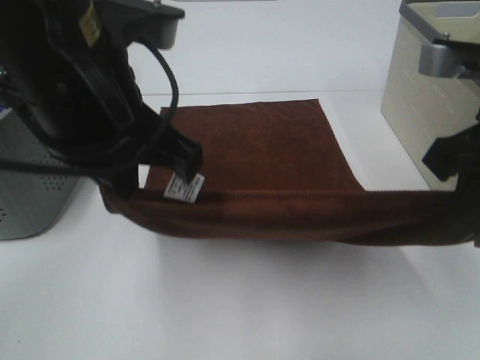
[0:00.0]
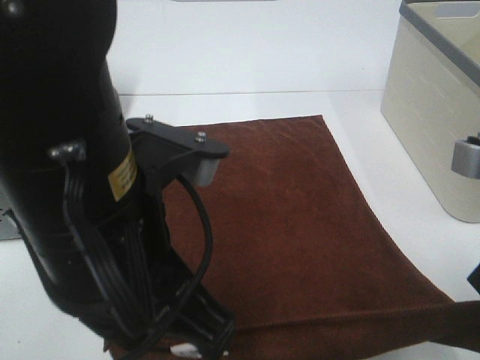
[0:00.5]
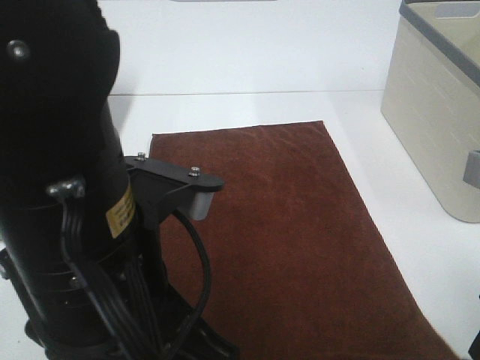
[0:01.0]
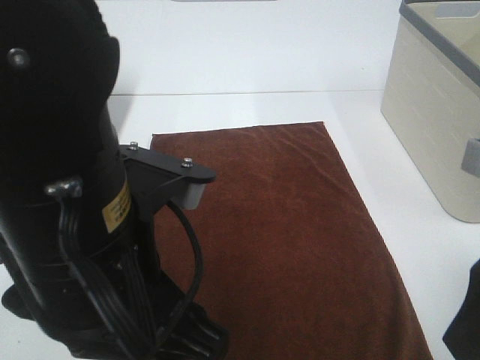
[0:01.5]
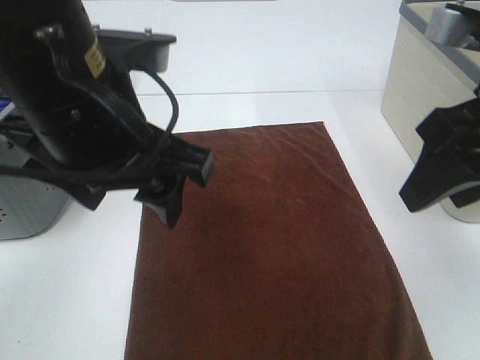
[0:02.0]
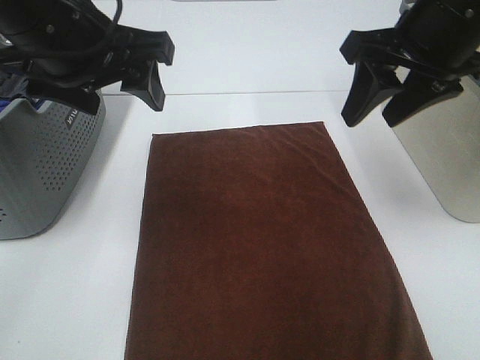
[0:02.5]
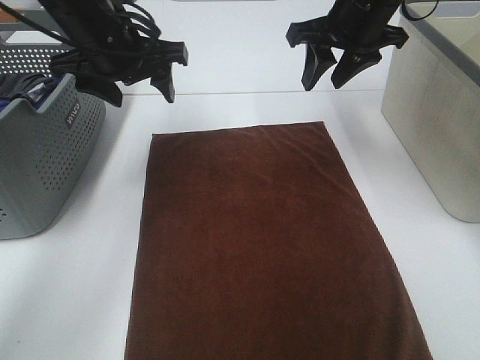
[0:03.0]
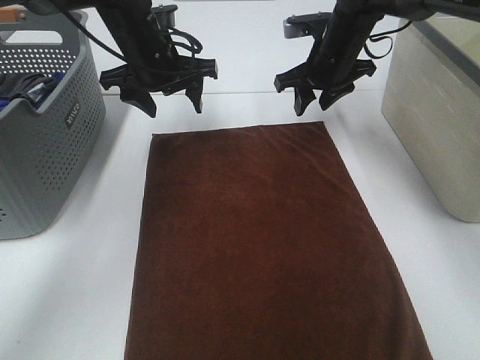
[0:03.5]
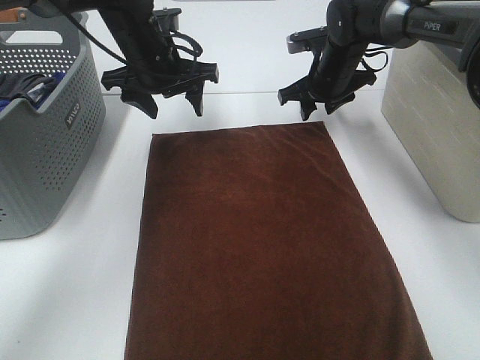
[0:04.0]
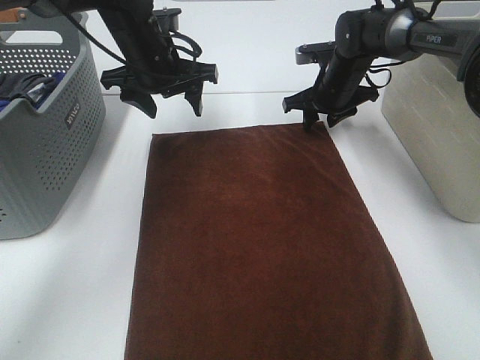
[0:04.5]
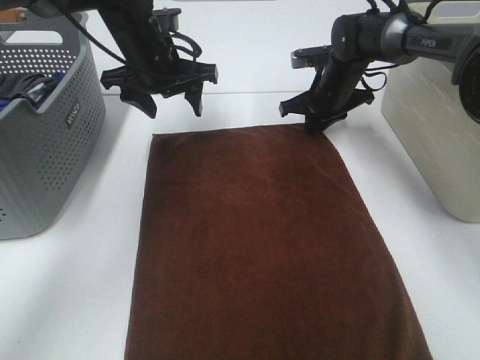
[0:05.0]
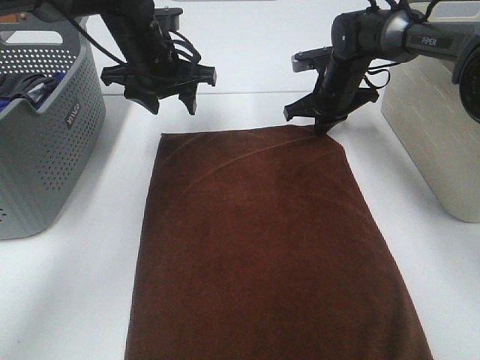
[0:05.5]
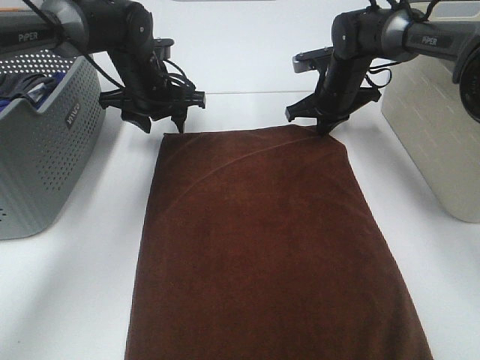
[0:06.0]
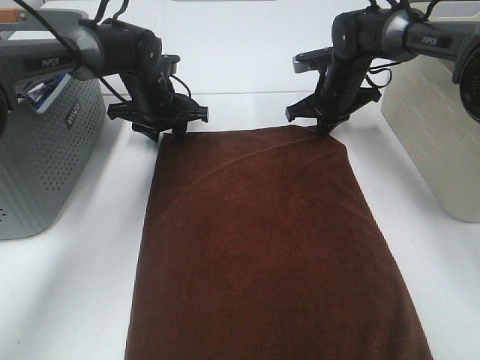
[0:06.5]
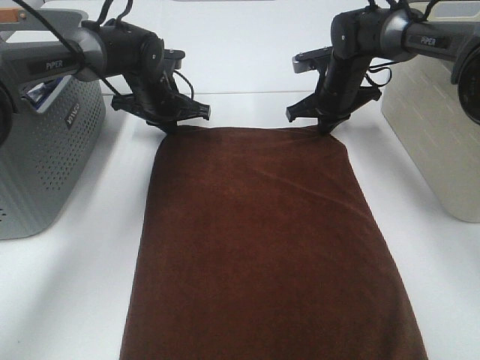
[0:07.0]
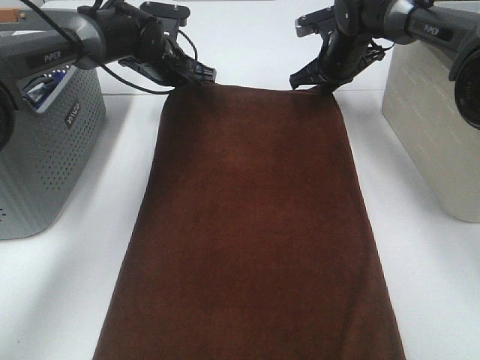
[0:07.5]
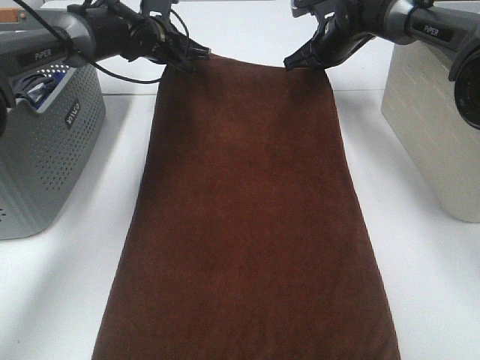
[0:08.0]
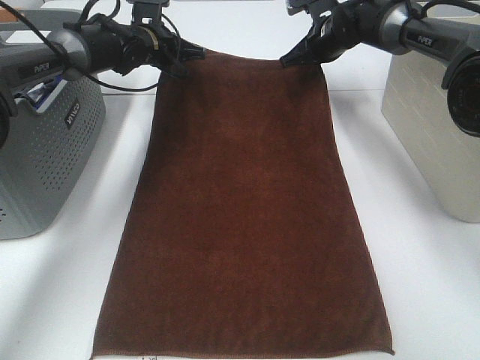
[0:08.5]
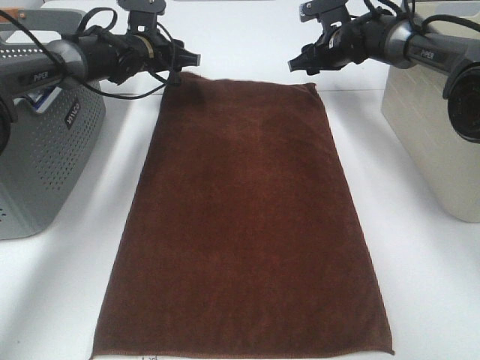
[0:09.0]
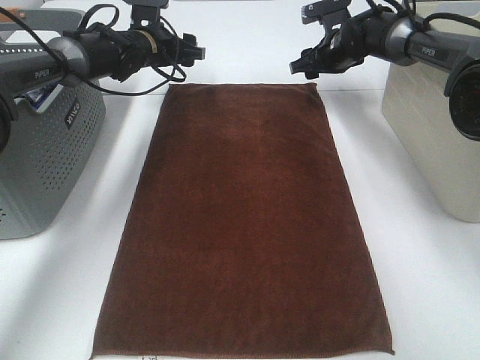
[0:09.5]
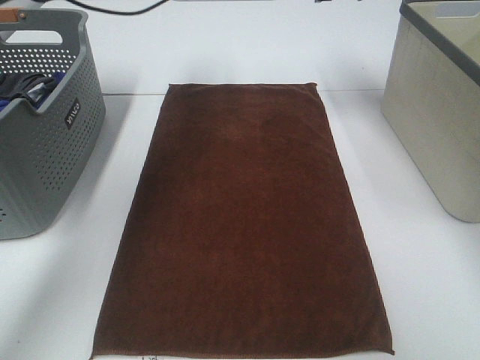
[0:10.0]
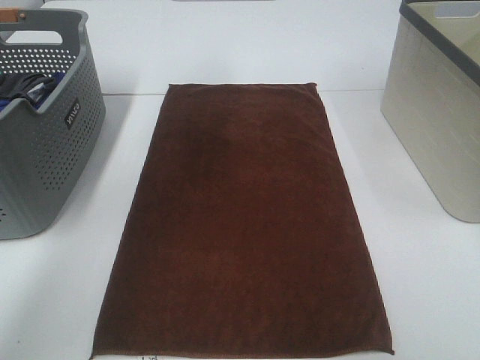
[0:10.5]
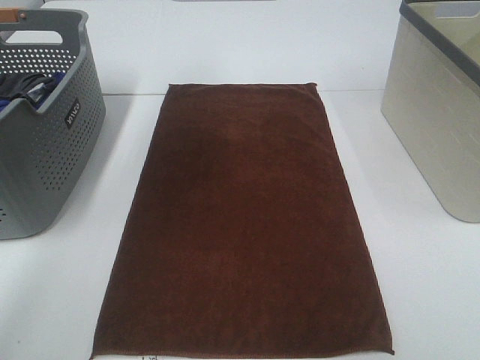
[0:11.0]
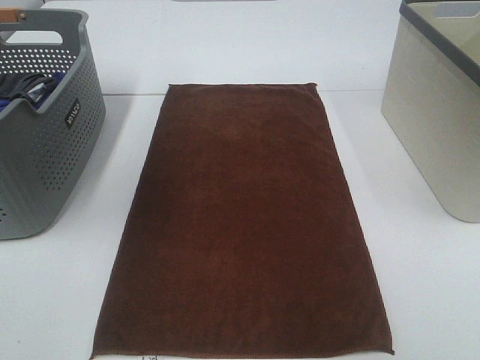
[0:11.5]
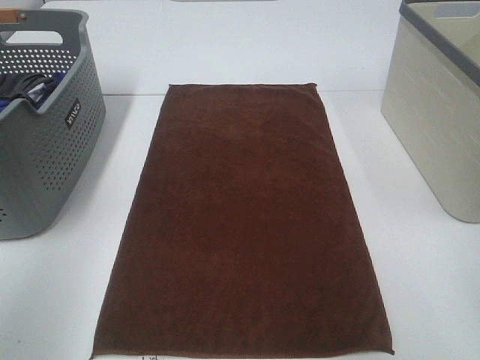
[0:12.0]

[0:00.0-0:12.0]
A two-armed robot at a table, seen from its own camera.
Task of the whole recording: Remove the towel and place it.
Step, 0.0 to 3.5 s: Left hand:adjust the brown towel.
Step, 0.0 to 3.5 s: Right hand:adjust the brown towel.
0.0 to 2.0 s: The right gripper reaches about 5 cm backward, then returns, and opens up. Meanwhile the left gripper travels backward and back again, about 10 cm each way, and opens up.
2.0 to 4.0 s: The left gripper is displaced forward by approximately 25 cm. Meanwhile the right gripper is displaced forward and downward by about 35 cm.
4.0 to 6.0 s: The left gripper is displaced downward by some 5 cm. Meanwhile the right gripper closes its fingers.
6.0 to 8.0 s: The left gripper travels forward by roughly 5 cm, and closes. The right gripper heads upward, covering approximately 5 cm.
8.0 to 10.0 s: Both grippers move upward, approximately 10 cm. The right gripper opens its fingers. The left gripper opens up.
10.0 to 12.0 s: Both grippers move backward, about 40 cm.

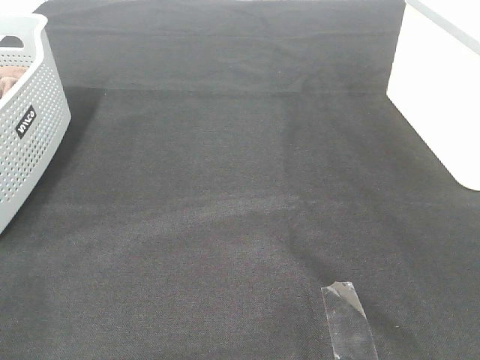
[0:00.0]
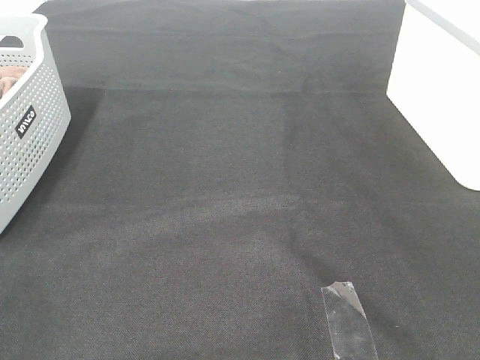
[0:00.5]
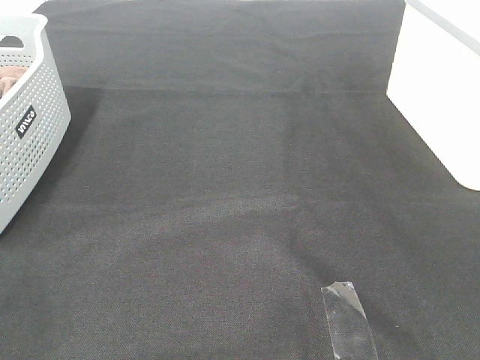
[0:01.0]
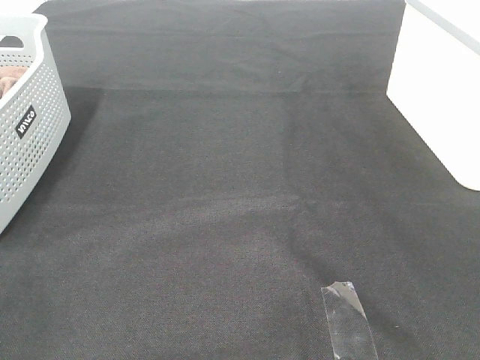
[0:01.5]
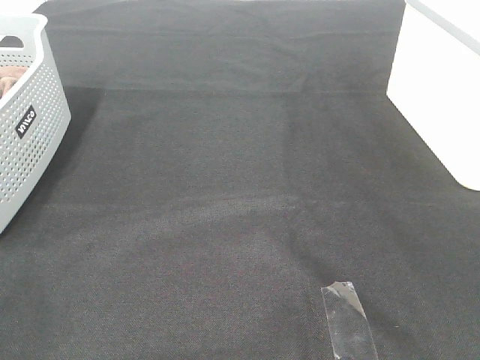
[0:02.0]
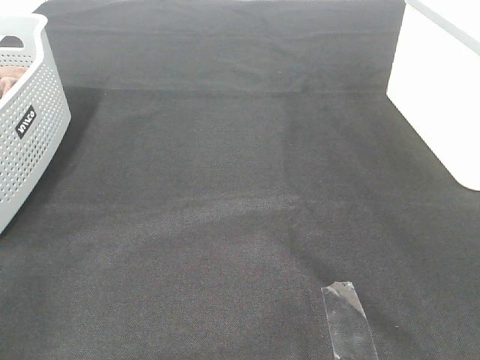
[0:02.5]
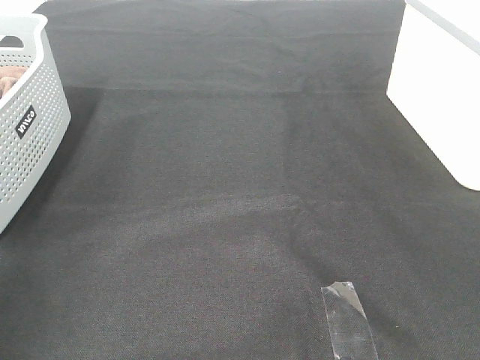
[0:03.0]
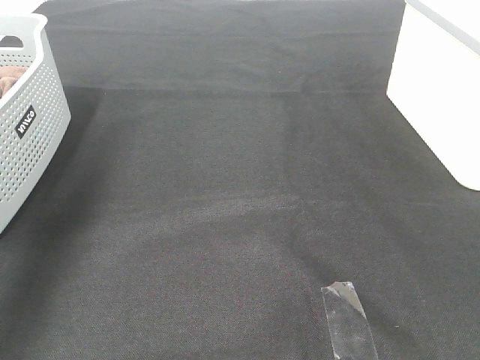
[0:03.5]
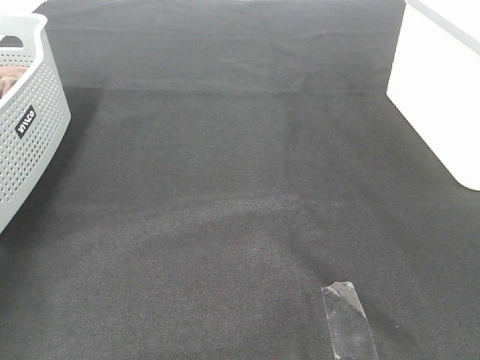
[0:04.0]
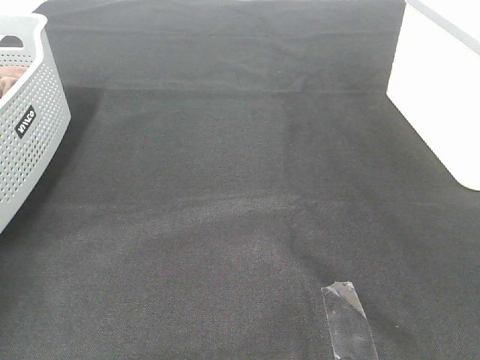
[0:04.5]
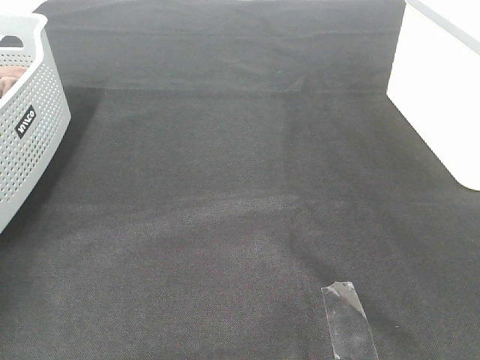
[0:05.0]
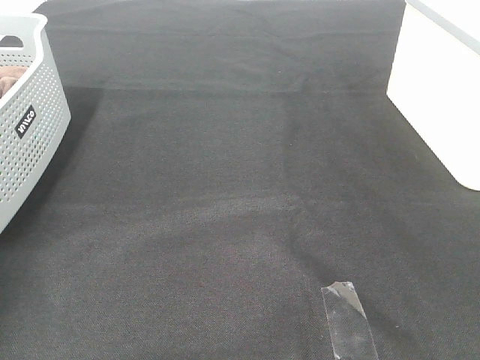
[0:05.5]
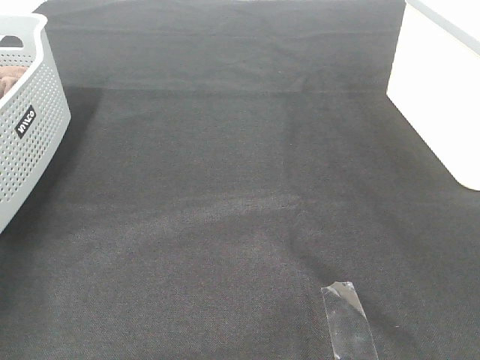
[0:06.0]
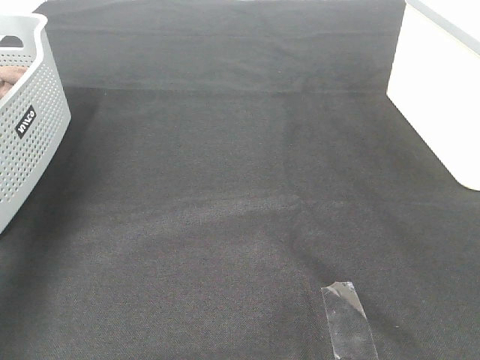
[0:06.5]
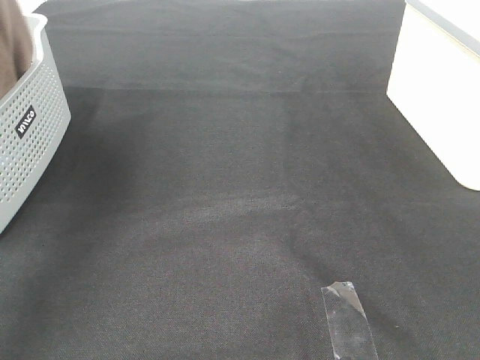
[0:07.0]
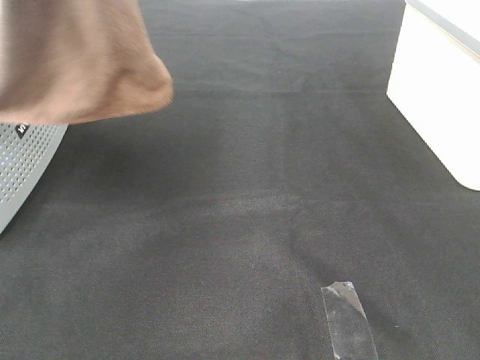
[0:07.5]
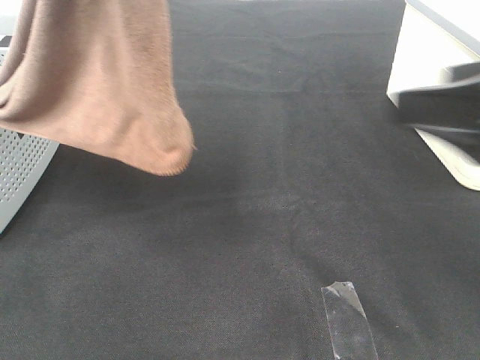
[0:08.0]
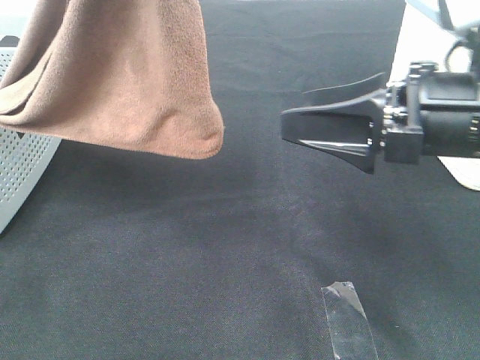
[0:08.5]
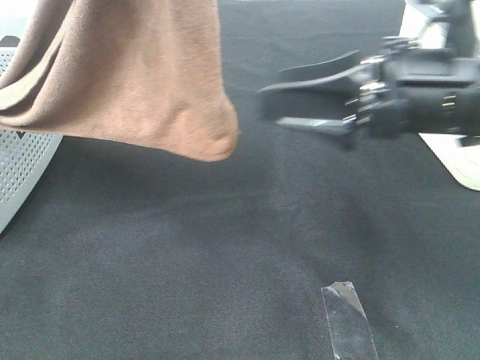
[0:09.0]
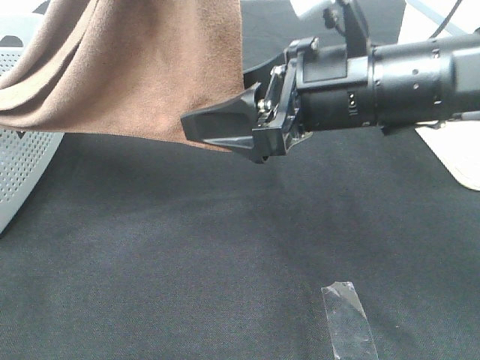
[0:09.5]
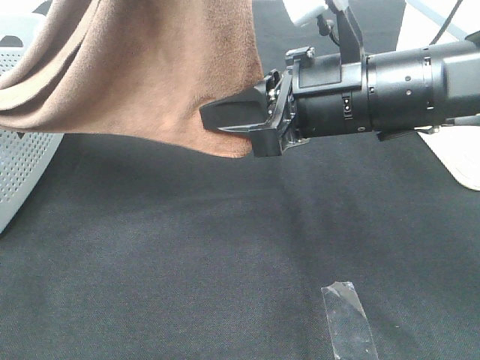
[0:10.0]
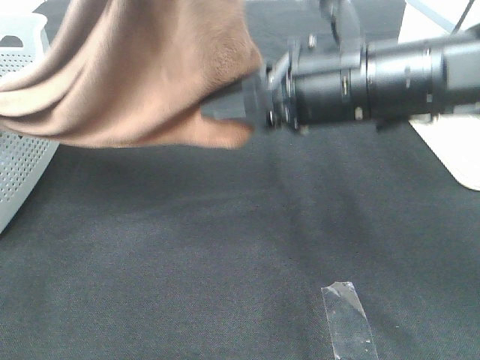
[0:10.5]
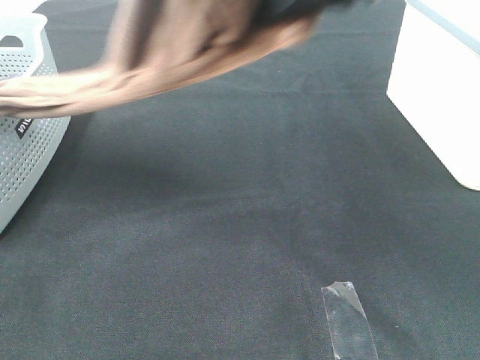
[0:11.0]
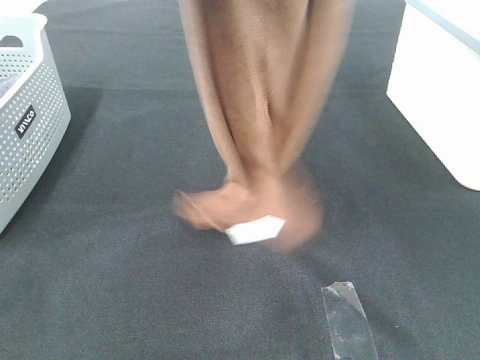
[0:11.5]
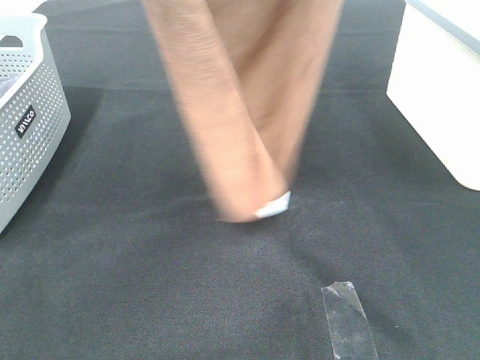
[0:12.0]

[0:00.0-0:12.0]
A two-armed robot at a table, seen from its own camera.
Task of the whole recording: Remove the towel and place it.
Step, 7.5 to 10.0 s: Right hand: grab a corner of the brown towel and straighten it.
0.0 to 2.0 s: Neither gripper changes place.
2.0 to 4.0 s: The left gripper heads forward, covering some 40 cm.
6.0 to 8.0 s: The left gripper moves to the right, upward and backward, roughly 35 cm; the right gripper goes roughly 15 cm forward.
8.0 to 10.0 s: The right gripper travels to the left, forward and downward by roughly 15 cm, and closes.
10.0 to 12.0 s: The left gripper goes roughly 10 cm to the left and forward. Meanwhile the right gripper travels upward by about 30 cm.

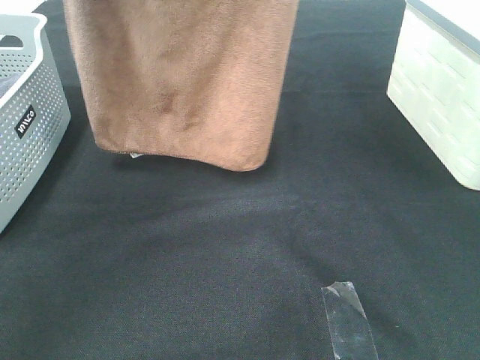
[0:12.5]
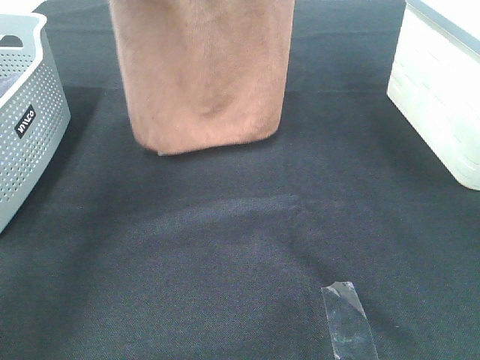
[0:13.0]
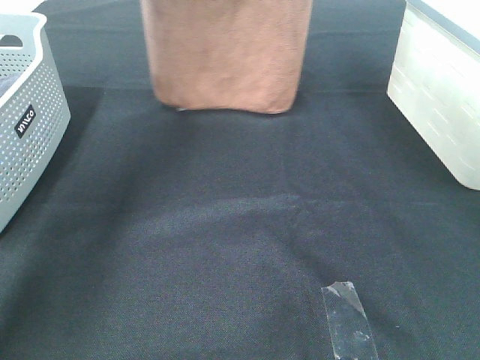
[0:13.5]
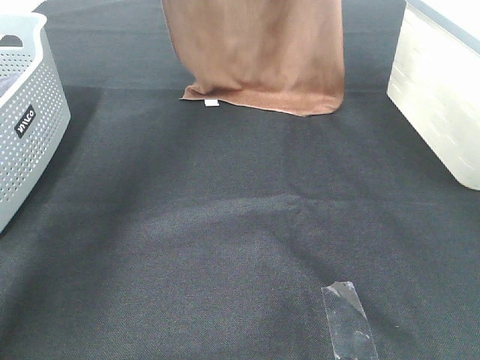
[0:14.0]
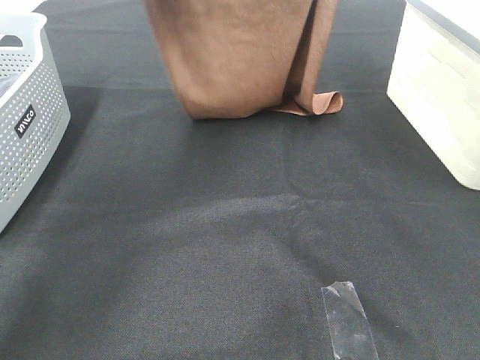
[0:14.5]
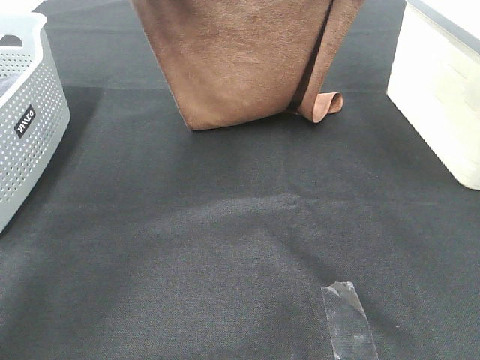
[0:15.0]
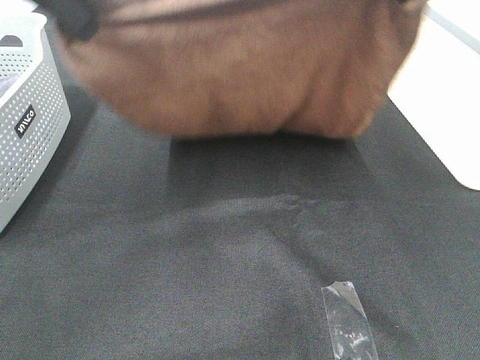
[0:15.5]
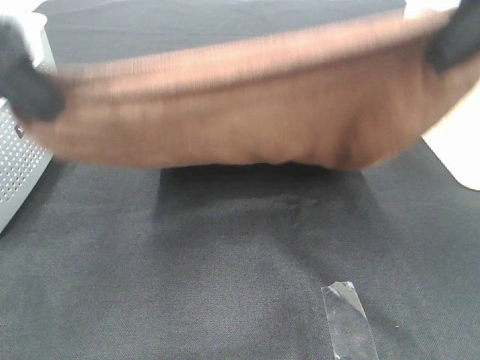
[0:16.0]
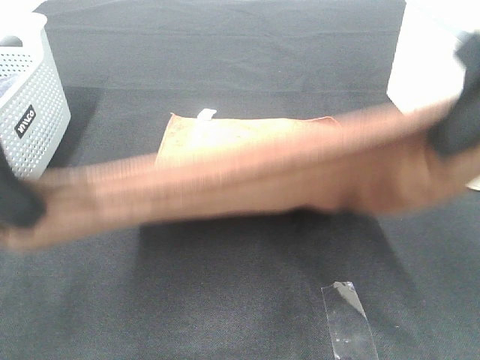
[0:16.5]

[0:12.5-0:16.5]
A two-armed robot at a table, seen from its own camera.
Task of the whole recording: Remove the towel and place it.
12.5 to 14.5 s: The left gripper moves downward, forward and to the right, about 15 cm; the right gripper shifts some 10 cm downward and forward.
14.5 to 16.5 s: Both grippers move backward, roughly 25 cm.
